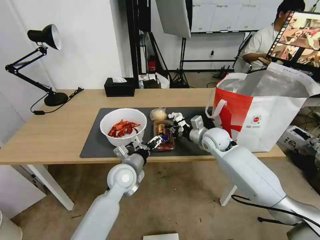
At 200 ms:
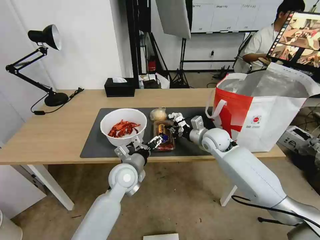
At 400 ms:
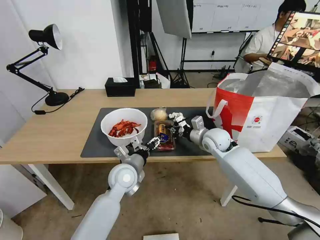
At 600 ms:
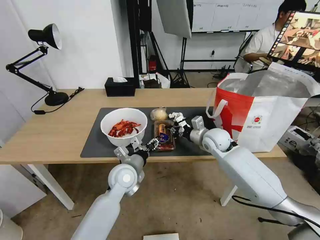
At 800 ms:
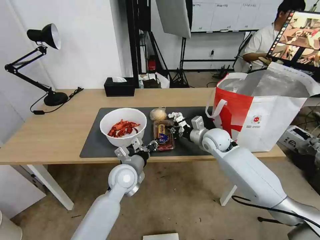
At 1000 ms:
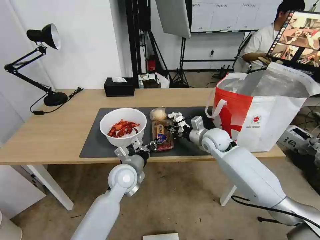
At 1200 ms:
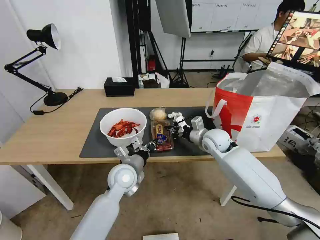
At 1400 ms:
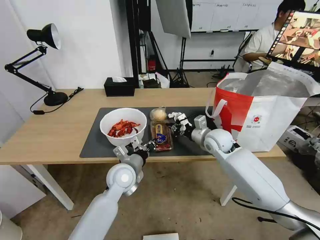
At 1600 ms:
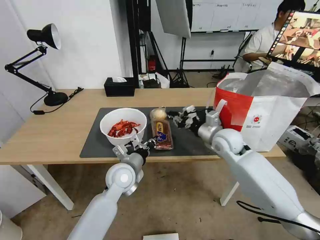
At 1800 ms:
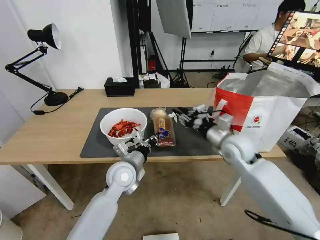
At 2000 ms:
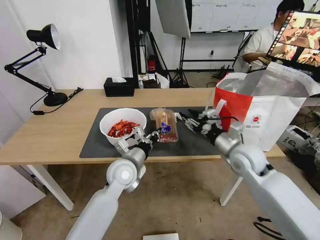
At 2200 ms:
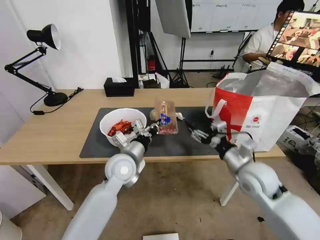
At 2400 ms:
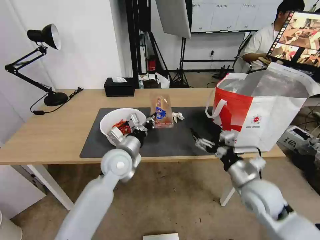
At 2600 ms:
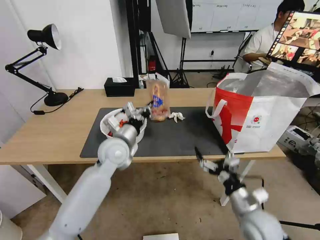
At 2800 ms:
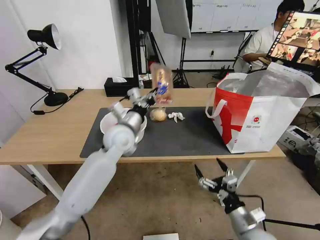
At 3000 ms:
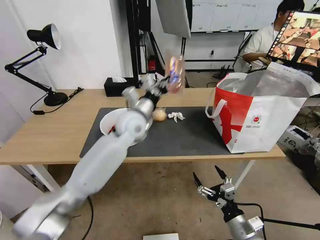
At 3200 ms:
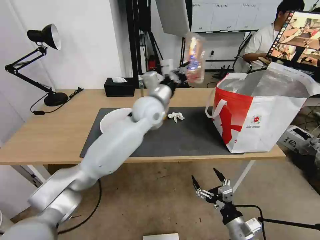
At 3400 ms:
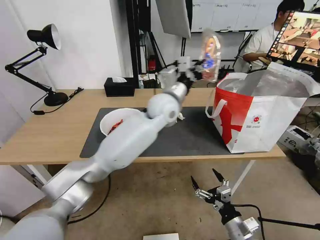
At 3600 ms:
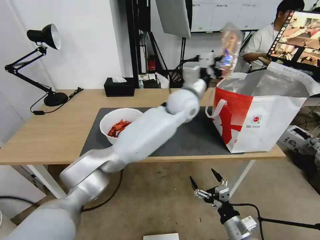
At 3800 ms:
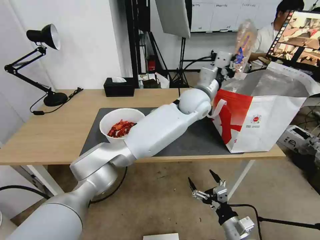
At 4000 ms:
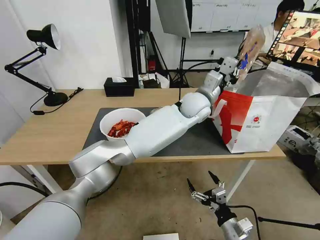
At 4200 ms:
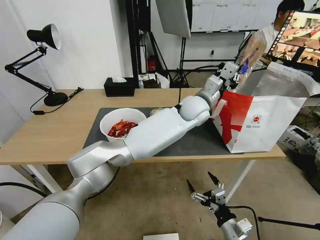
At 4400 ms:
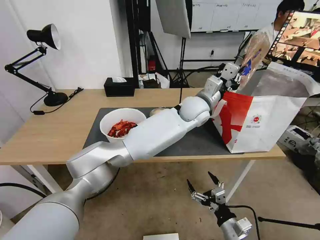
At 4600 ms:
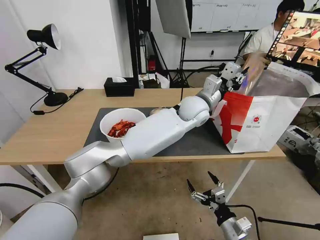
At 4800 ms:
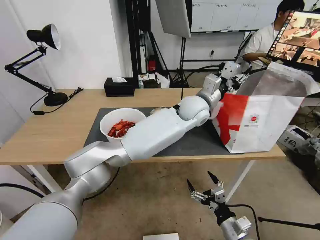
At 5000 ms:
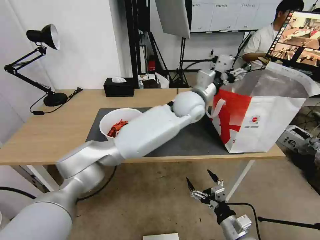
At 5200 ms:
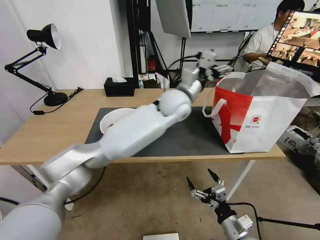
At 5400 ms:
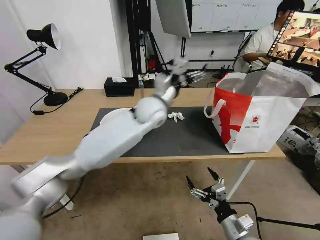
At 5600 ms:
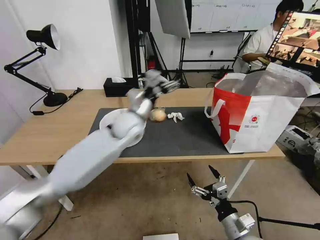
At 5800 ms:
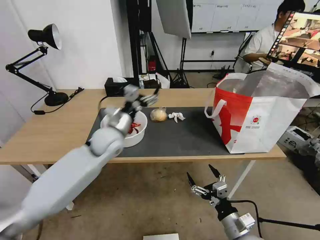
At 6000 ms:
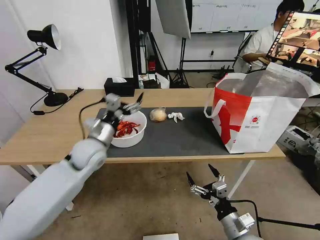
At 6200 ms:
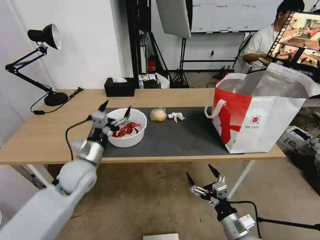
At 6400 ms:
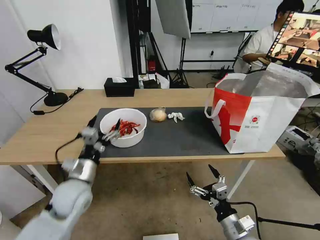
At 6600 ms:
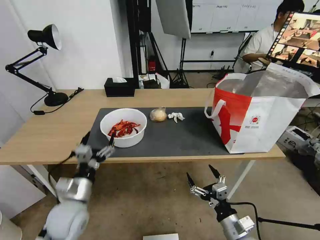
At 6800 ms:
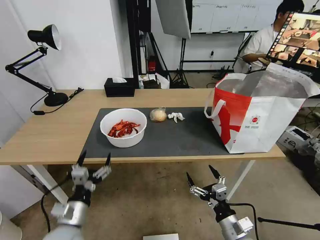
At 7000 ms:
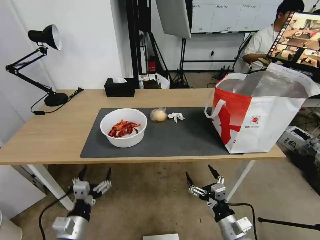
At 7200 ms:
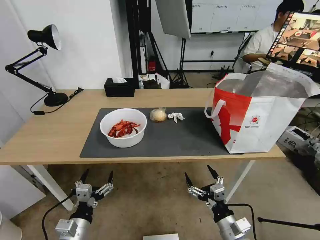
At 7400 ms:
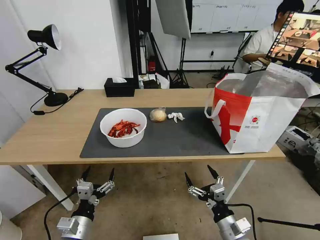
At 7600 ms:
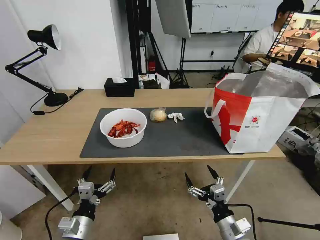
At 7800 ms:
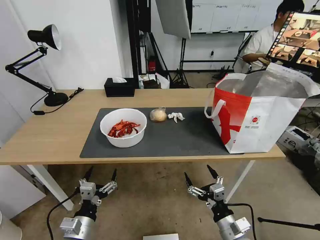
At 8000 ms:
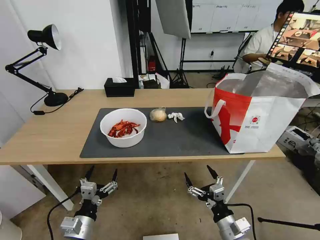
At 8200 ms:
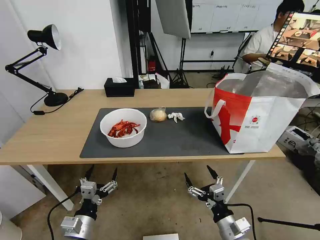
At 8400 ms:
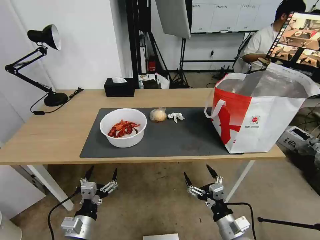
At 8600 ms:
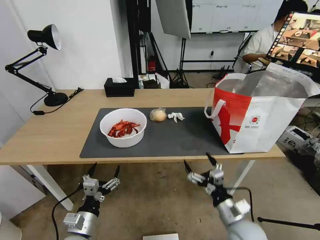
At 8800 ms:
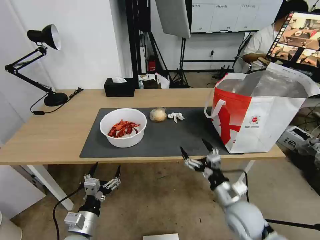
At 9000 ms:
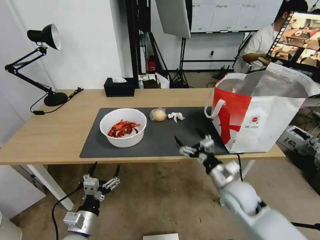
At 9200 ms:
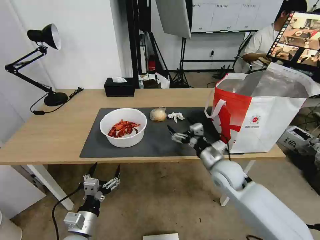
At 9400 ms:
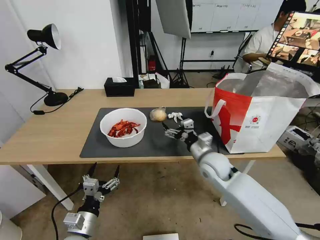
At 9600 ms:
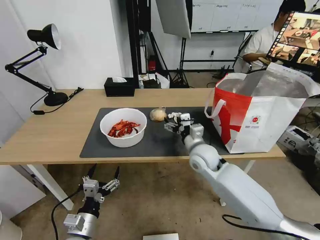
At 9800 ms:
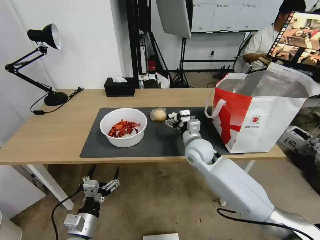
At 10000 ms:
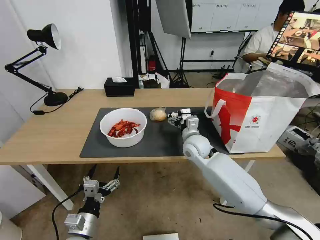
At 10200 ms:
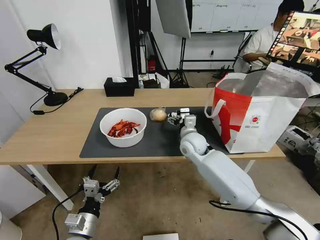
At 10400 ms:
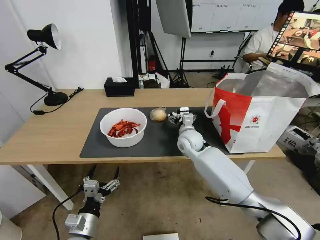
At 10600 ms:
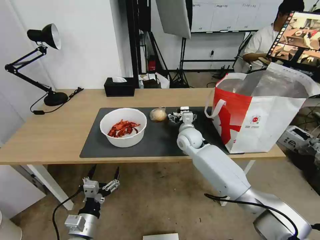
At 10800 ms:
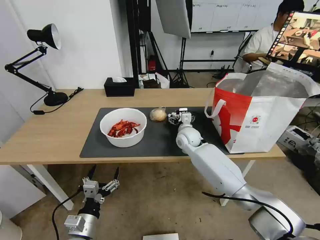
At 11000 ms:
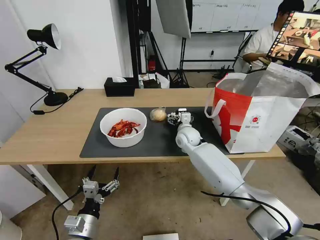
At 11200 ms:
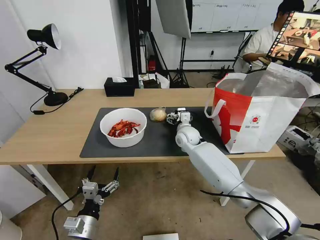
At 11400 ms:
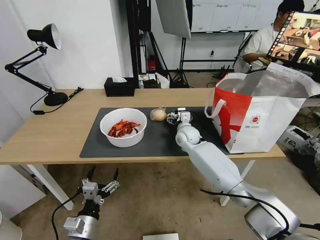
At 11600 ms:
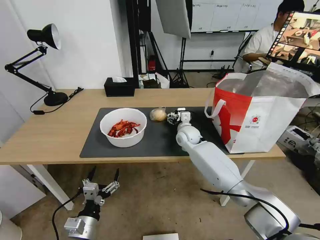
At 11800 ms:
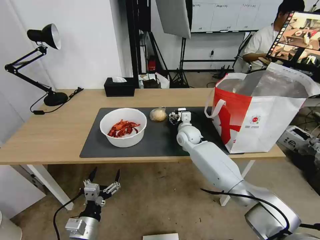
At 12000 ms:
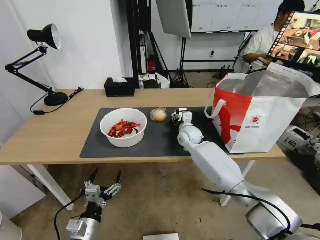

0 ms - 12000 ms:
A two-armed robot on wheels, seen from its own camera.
Task of the whole recording: Pick up the trash from the table and place it into the takeout bag.
0 ms - 1600 ms: The left gripper closes up.
1600 ms - 3000 ms: The left gripper is displaced upward and forward by some 15 cm; the right gripper travels backward and downward by approximately 35 cm, and opens its fingers.
3000 ms - 4400 ms: The left gripper heads to the right, covering roughly 20 cm.
4400 ms - 6000 ms: The left gripper shifts approximately 35 cm to the left, and opens its fingers.
6000 ms - 7600 ms: The left gripper heads backward and downward, covering roughly 30 cm.
7600 ms - 9000 ms: The right gripper is displaced forward and upward by roughly 15 cm.
9000 ms - 10400 ms: The right gripper travels forward and to the left by approximately 25 cm.
10400 ms - 12000 ms: The right gripper moves about 5 cm, and closes up.

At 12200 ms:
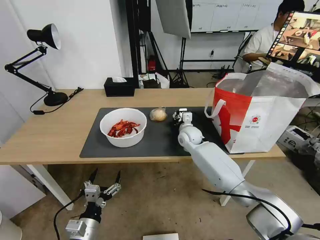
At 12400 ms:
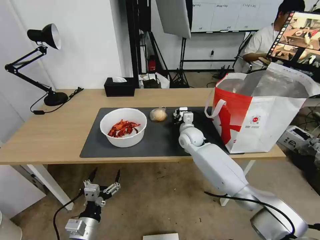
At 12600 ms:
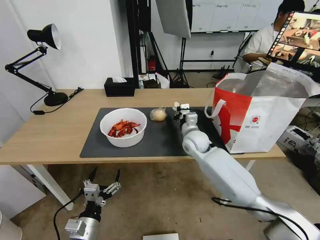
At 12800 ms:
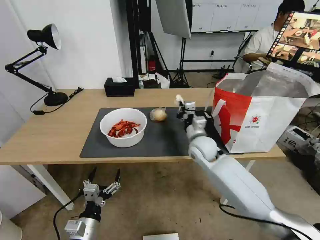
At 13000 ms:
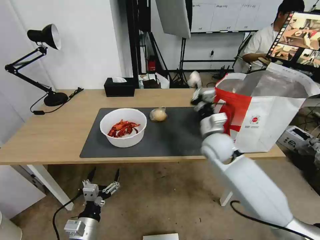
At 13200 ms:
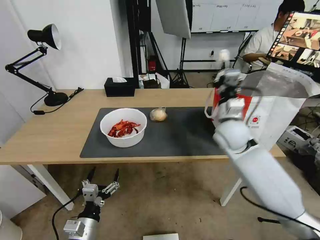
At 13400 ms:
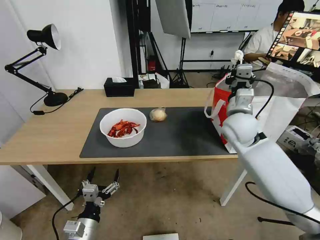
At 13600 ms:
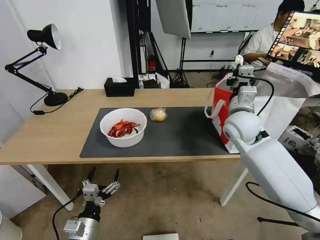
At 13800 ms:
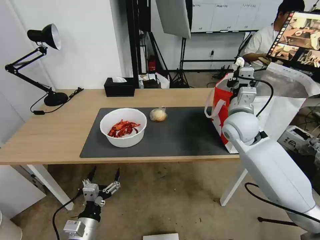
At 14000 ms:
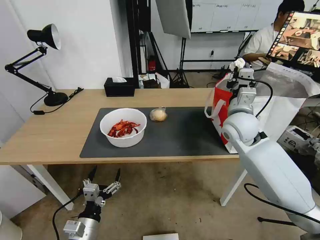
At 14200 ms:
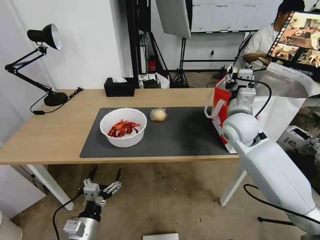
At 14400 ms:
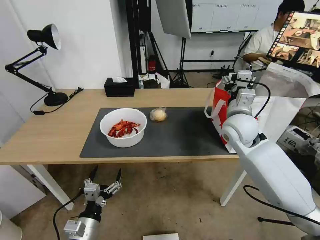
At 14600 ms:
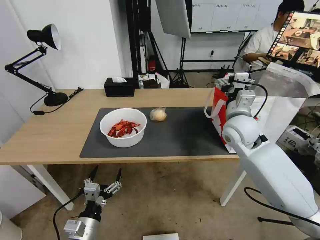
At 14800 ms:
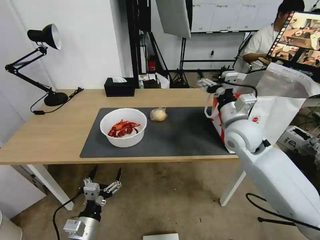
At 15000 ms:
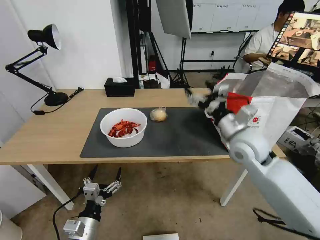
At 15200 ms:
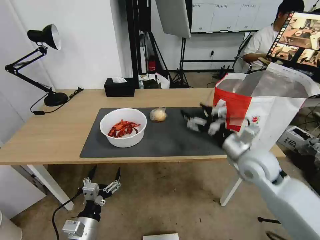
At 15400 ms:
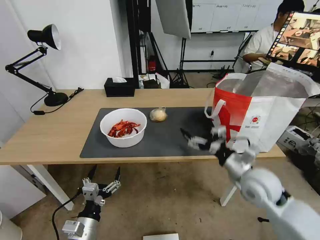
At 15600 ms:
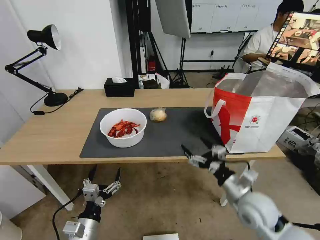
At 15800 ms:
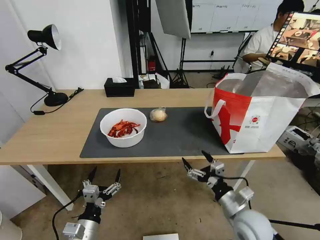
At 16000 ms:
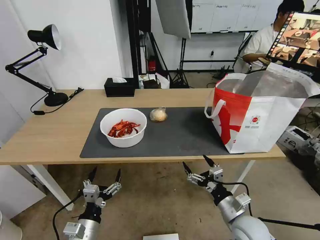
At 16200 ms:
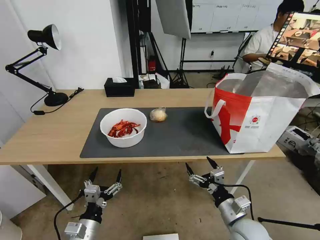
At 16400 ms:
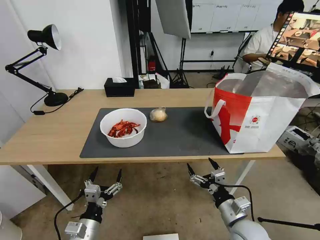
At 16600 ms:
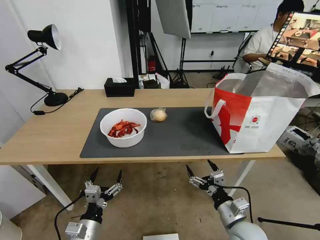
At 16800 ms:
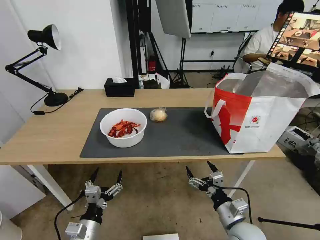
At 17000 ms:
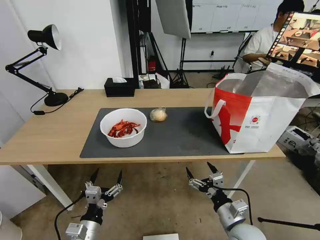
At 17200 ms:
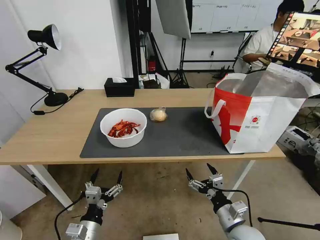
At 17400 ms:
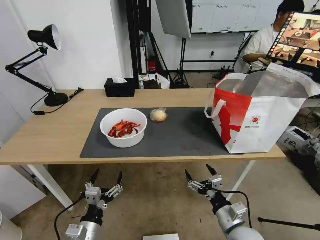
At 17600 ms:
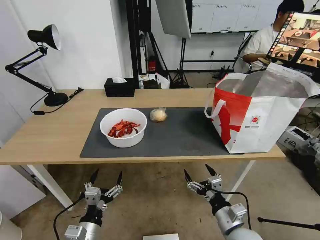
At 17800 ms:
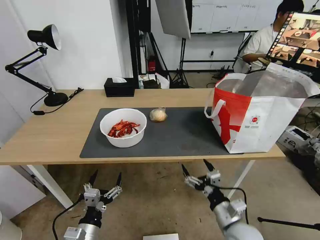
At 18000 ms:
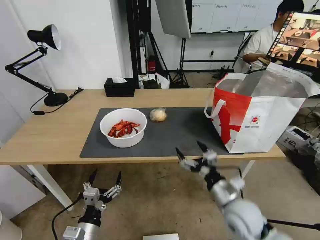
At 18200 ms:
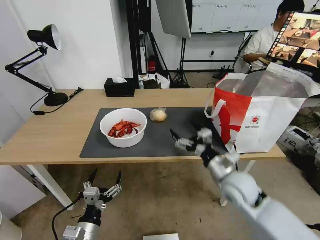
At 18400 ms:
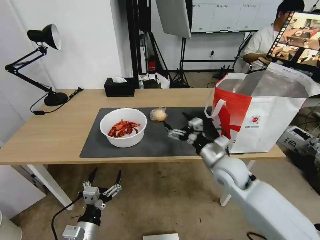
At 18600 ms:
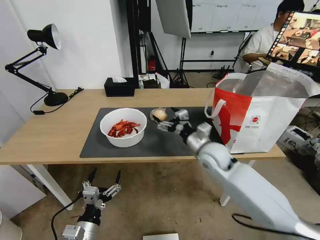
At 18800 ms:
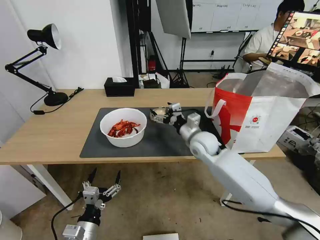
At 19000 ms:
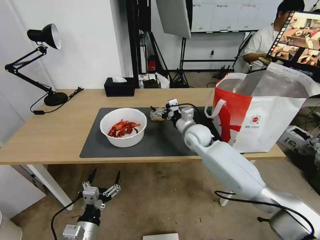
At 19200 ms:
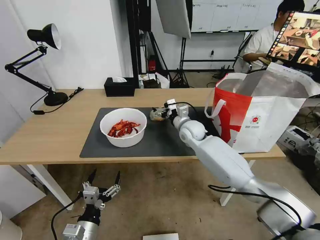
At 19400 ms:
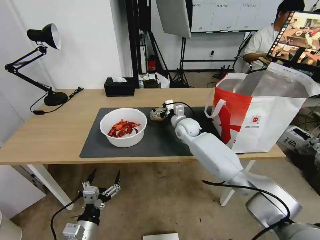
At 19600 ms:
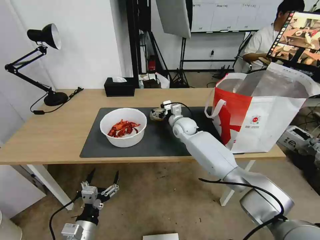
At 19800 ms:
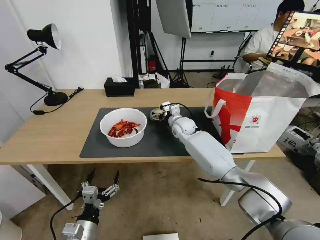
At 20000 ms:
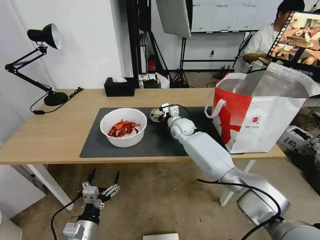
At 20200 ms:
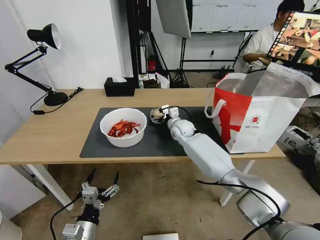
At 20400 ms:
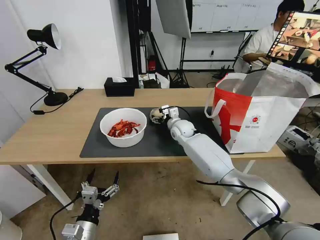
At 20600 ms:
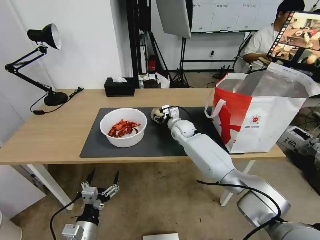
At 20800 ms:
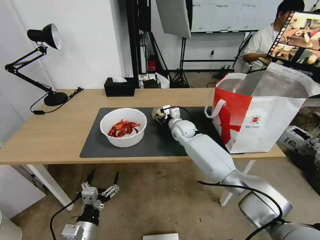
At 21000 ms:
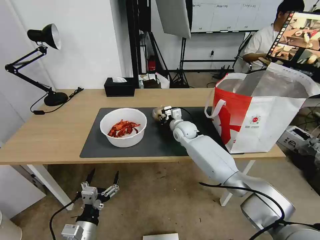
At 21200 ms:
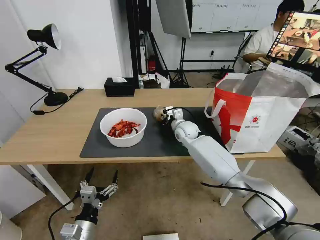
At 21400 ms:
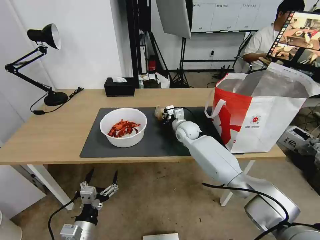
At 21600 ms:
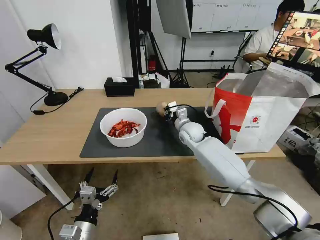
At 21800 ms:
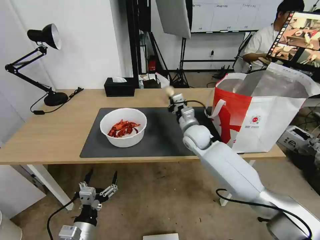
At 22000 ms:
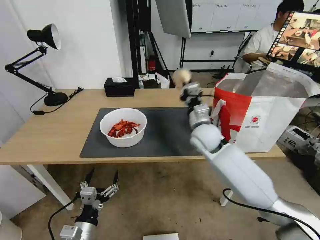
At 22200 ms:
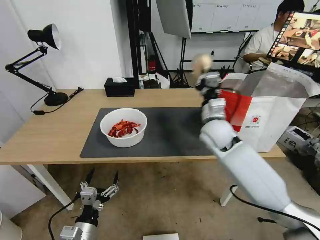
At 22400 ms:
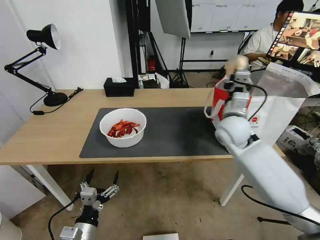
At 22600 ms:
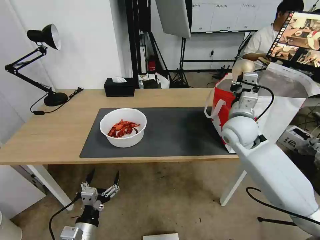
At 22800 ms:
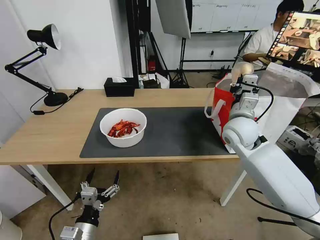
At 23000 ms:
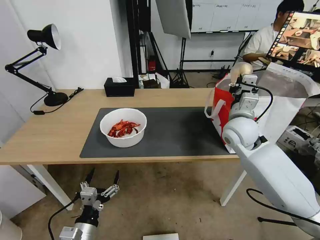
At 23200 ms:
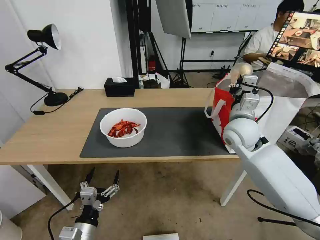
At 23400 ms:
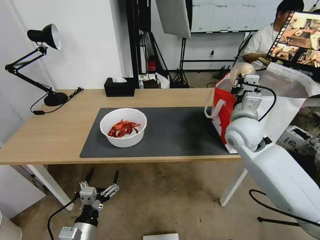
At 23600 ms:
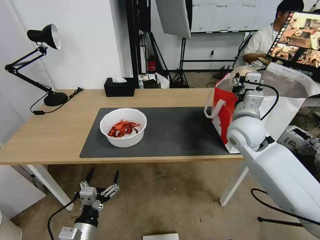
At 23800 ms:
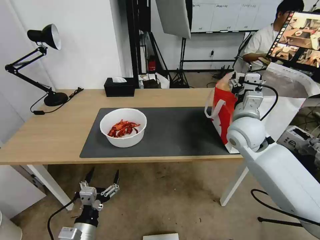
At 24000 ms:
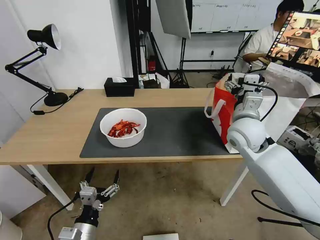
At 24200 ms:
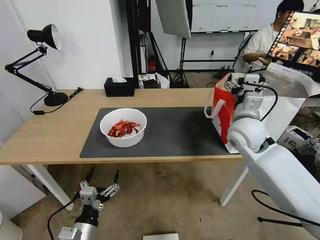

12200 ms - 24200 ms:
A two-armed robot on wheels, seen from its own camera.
Task of the whole recording: Pick up the trash from the table and place it into the takeout bag.
12200 ms - 13800 ms: The right gripper shifts some 20 cm upward, to the right and backward.
13800 ms - 15200 ms: The right gripper shifts approximately 10 cm backward and downward, and opens its fingers.
15200 ms - 16600 ms: The right gripper heads downward and backward, covering approximately 20 cm.
16600 ms - 18200 ms: The right gripper travels forward and upward by about 15 cm.
18200 ms - 19800 ms: The right gripper goes approximately 30 cm forward and to the left.
19800 ms - 21200 ms: The right gripper closes.
21200 ms - 22600 ms: The right gripper goes approximately 20 cm upward, to the right and backward.
22600 ms - 24200 ms: The right gripper opens its fingers.
